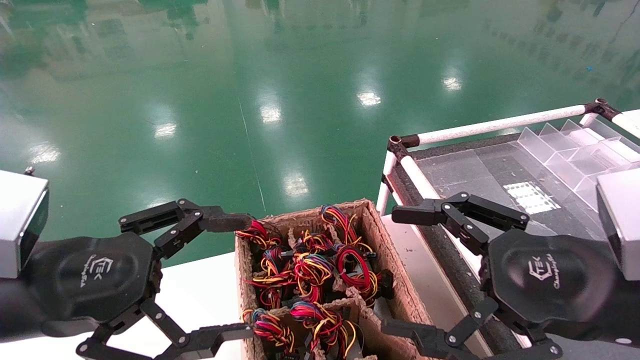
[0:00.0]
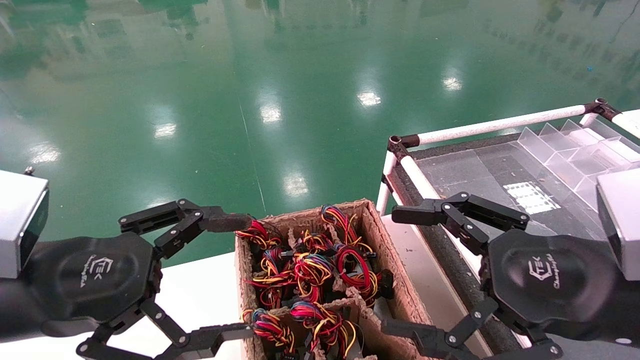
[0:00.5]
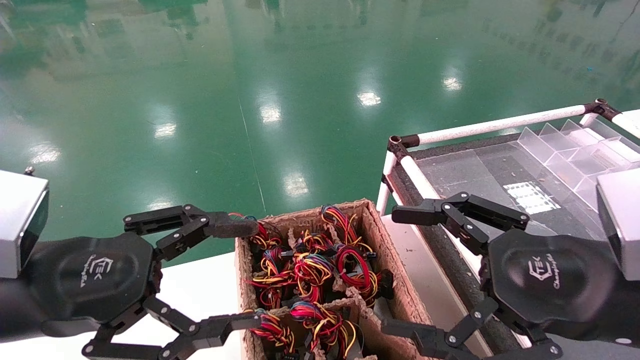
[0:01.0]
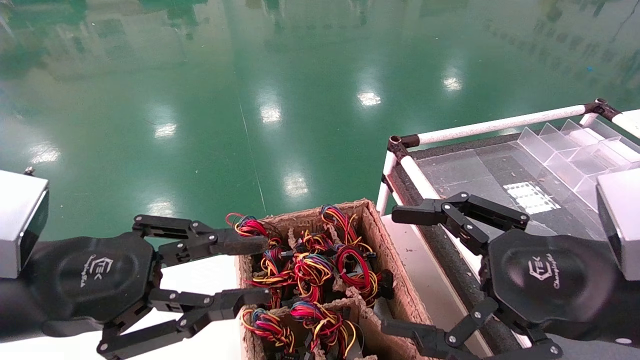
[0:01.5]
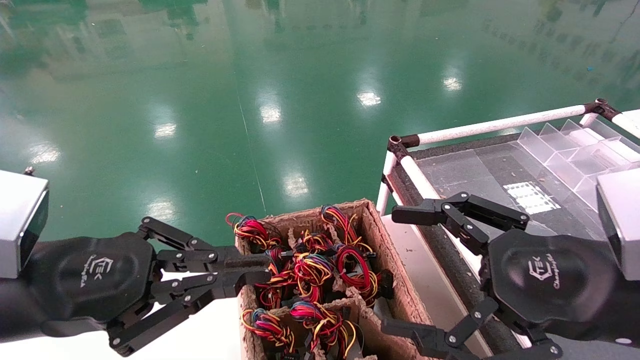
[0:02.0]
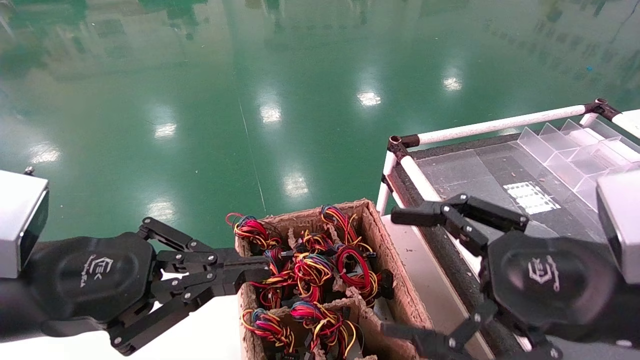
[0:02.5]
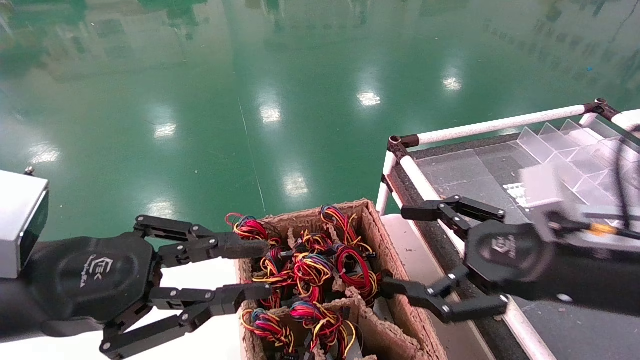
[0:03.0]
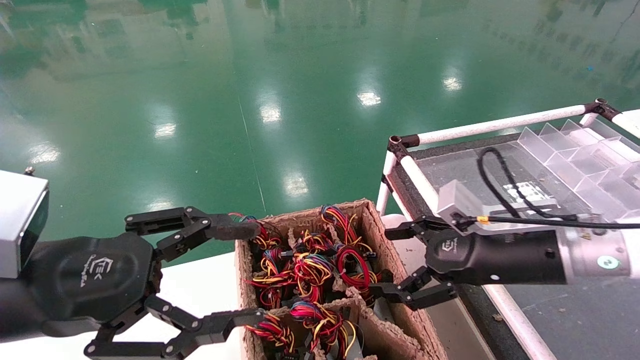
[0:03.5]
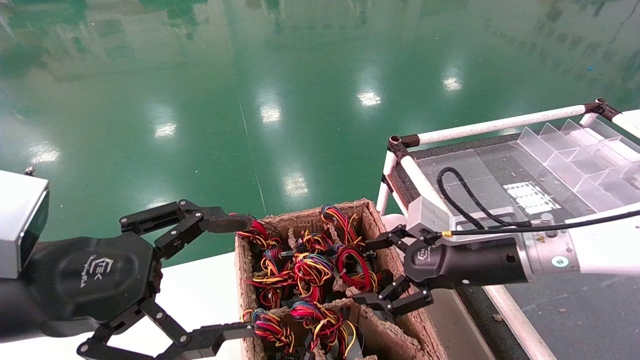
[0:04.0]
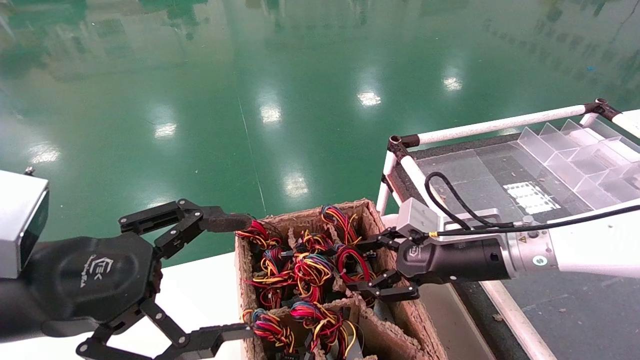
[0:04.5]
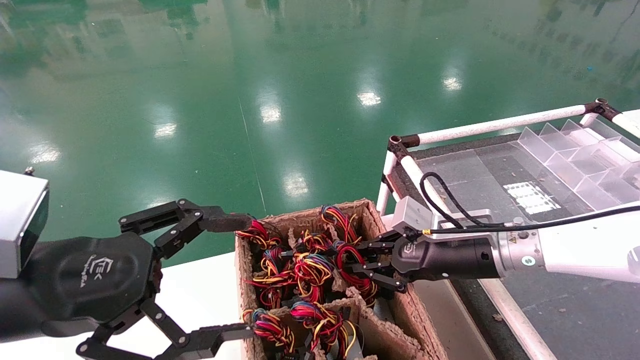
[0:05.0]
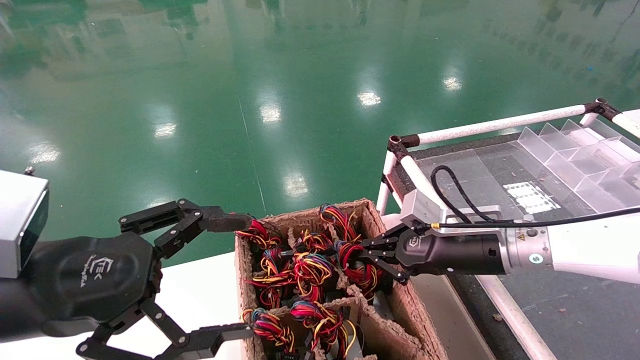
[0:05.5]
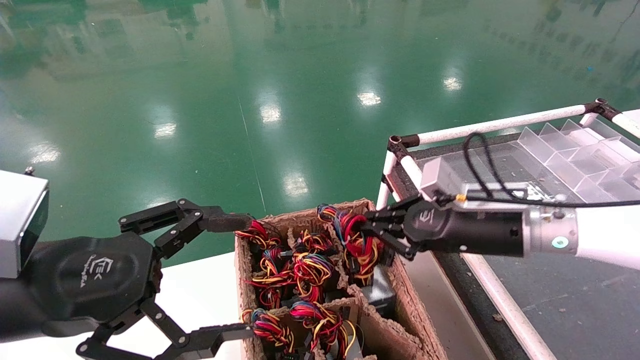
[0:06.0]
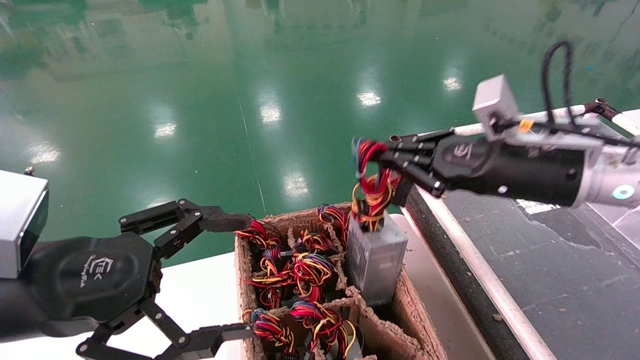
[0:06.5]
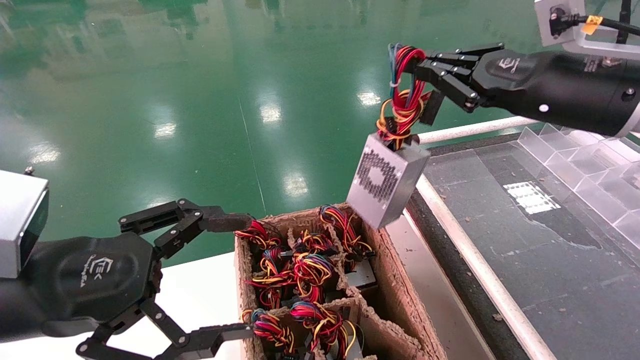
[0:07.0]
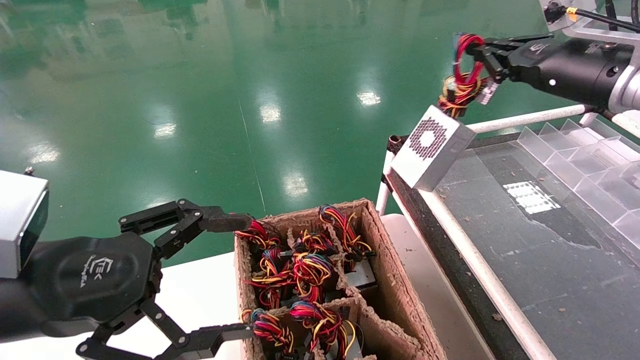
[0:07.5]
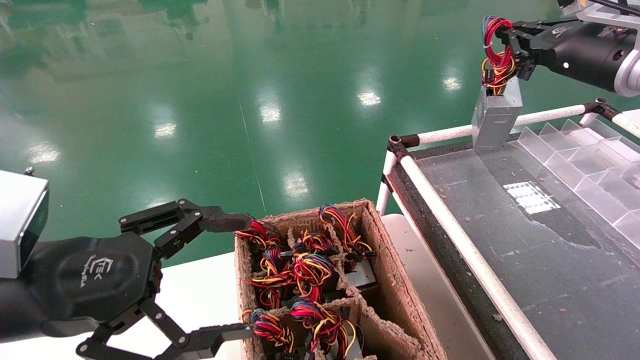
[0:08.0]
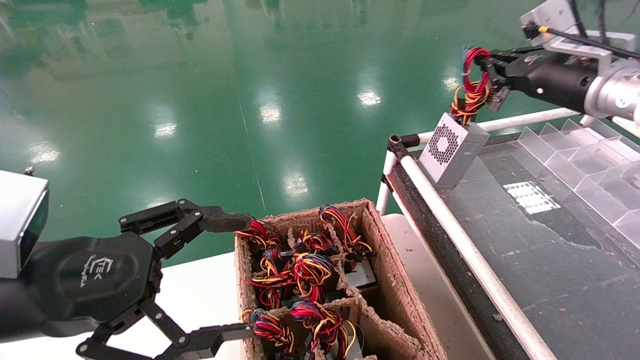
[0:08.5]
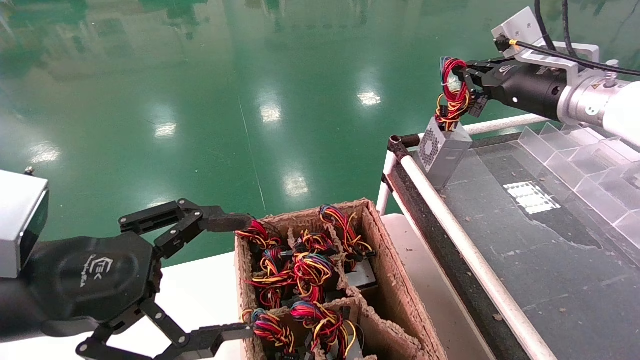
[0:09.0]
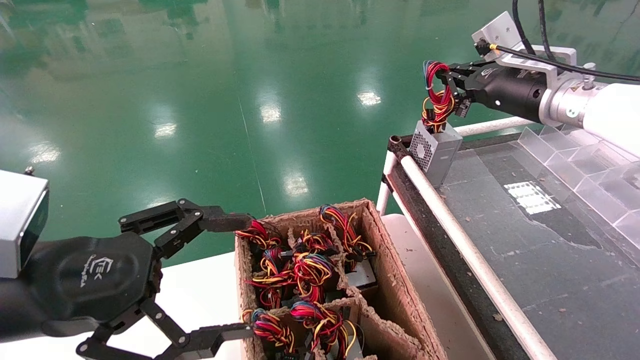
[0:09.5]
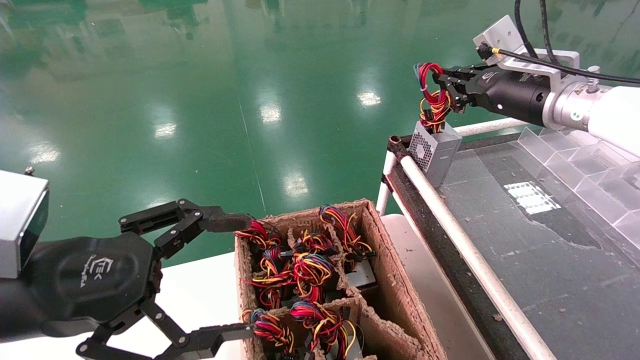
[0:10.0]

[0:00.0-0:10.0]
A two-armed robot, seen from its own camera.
Step, 0:02.5 to 0:05.5: Grab and lift the power supply from the large box.
Step, 0:06.0 to 0:09.5: Place the power supply on the operating table.
0:00.0 to 0:02.0: The left gripper closes its fingers.
0:02.0 to 0:04.0: The left gripper opens. The right gripper heads forward, covering some 15 cm.
0:04.0 to 0:06.0: The right gripper closes its fingers.
0:06.0 to 0:08.0: The right gripper heads upward and to the right, covering about 20 cm.
0:08.0 to 0:10.0: The right gripper goes roughly 5 cm to the left.

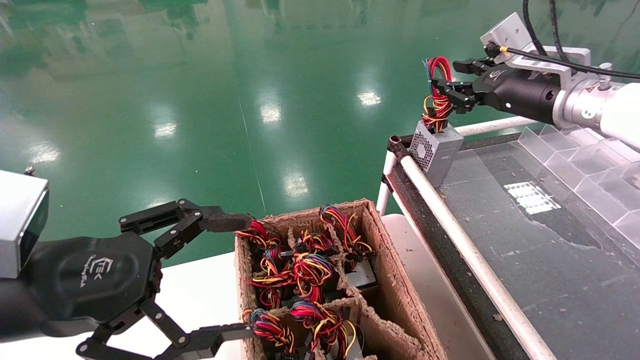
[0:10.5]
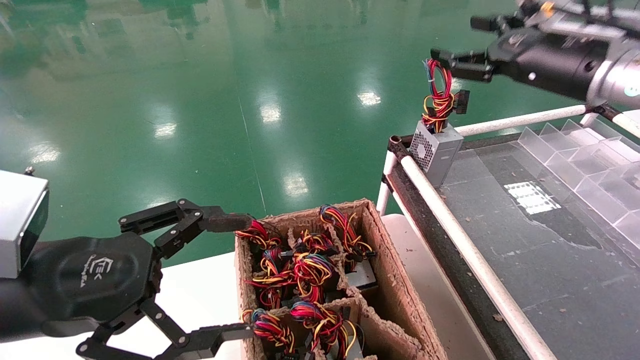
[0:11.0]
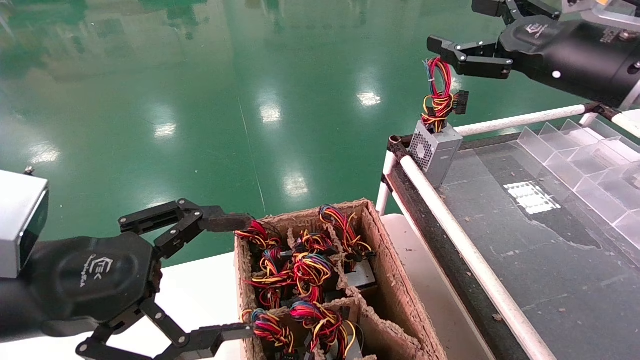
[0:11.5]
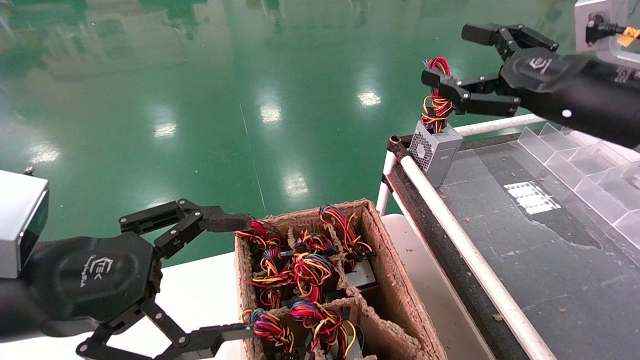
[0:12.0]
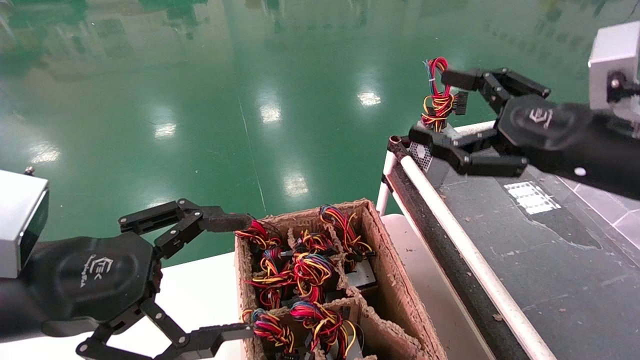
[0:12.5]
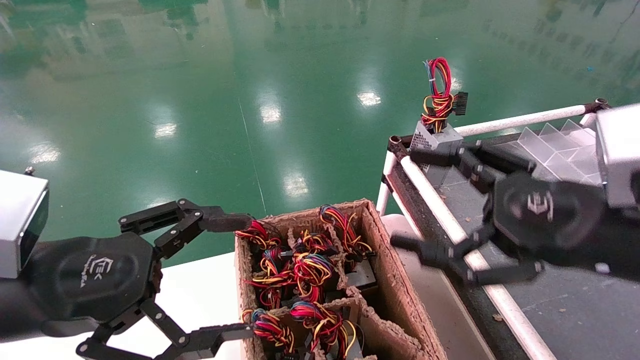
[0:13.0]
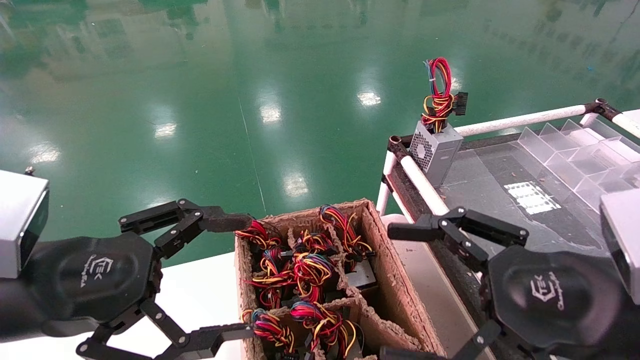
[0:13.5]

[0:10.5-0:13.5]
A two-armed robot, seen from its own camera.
0:10.5 to 0:12.0: The right gripper moves backward, about 10 cm, and opens its fingers.
0:12.0 to 0:13.5: The right gripper moves backward and downward, approximately 20 cm.

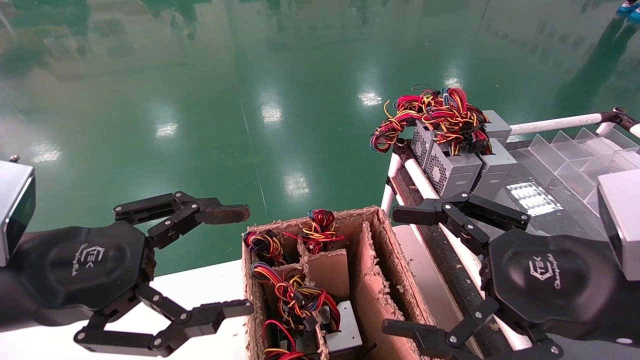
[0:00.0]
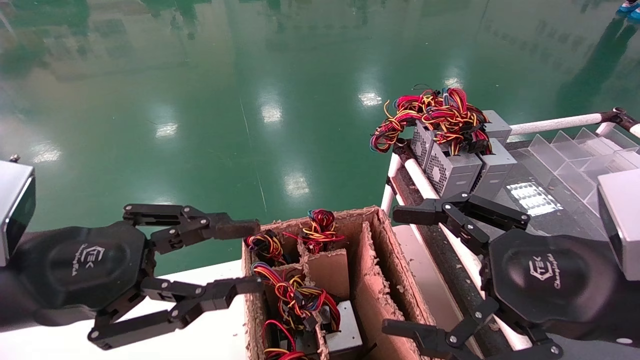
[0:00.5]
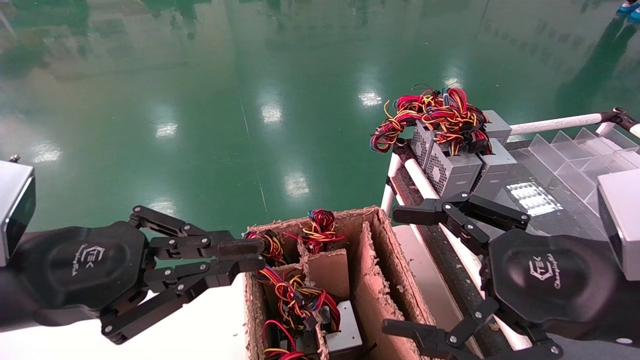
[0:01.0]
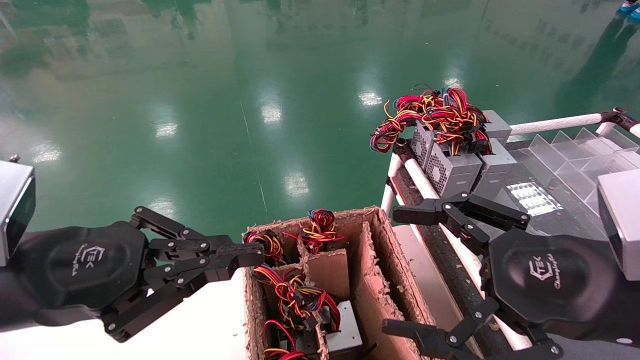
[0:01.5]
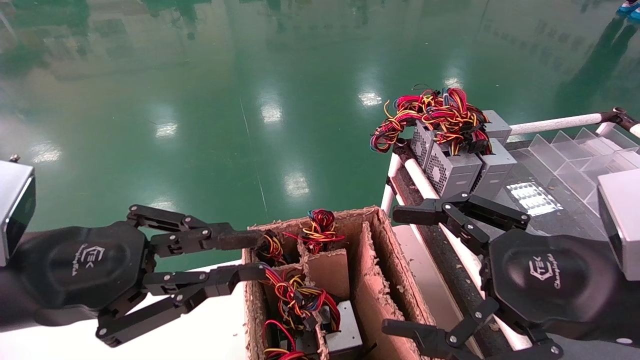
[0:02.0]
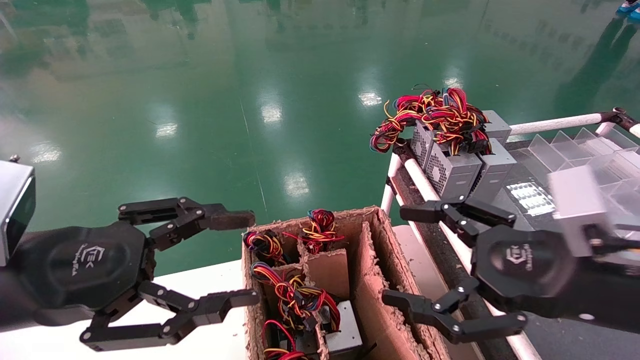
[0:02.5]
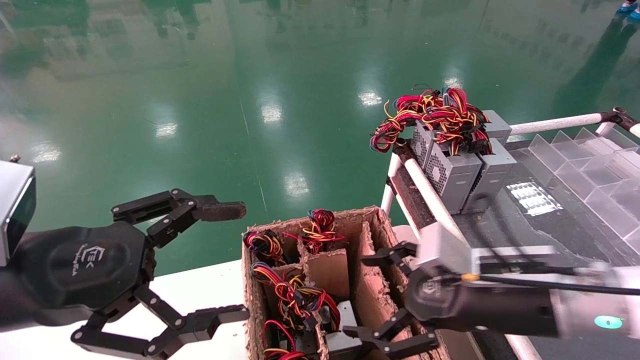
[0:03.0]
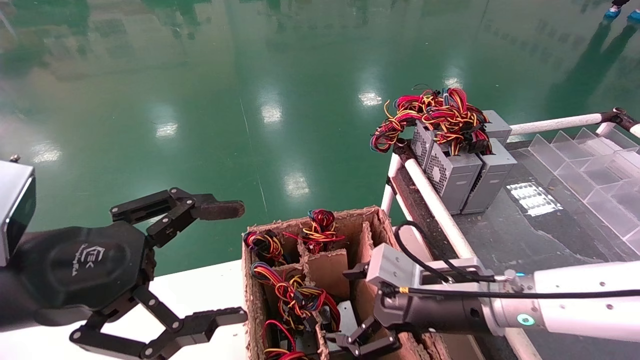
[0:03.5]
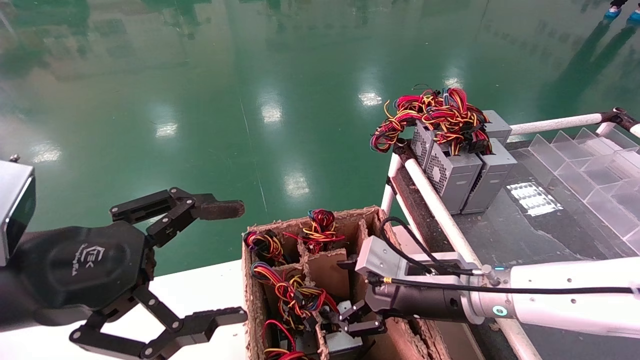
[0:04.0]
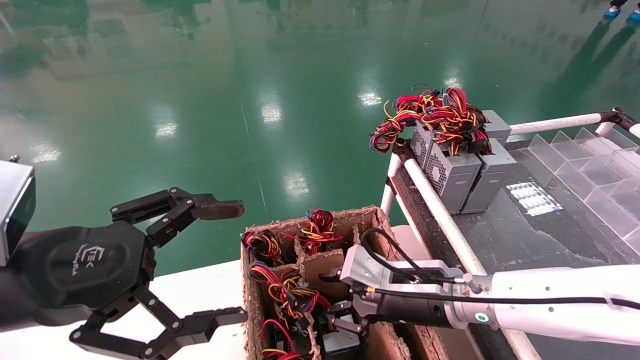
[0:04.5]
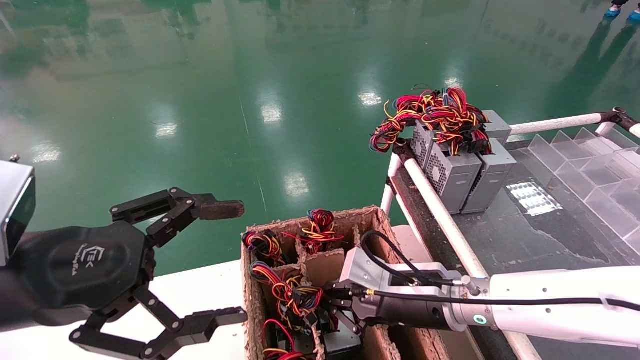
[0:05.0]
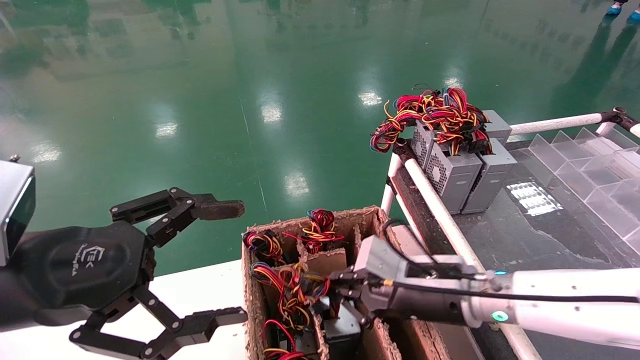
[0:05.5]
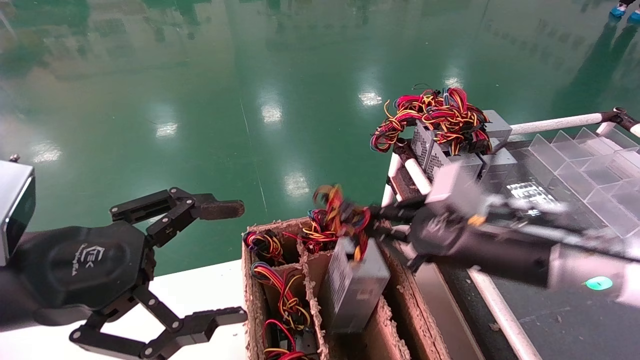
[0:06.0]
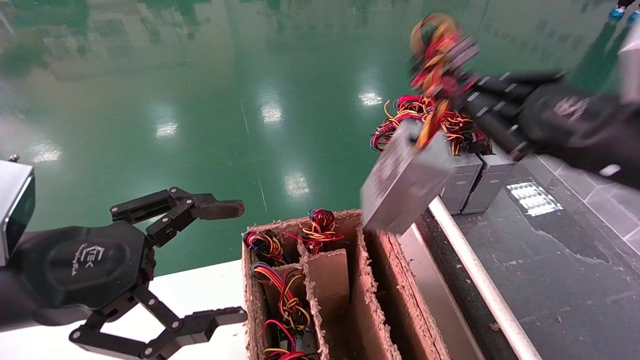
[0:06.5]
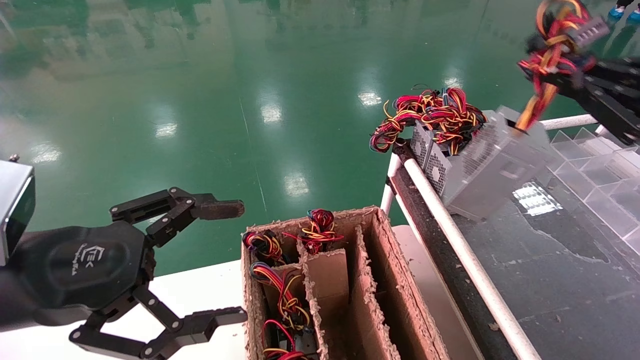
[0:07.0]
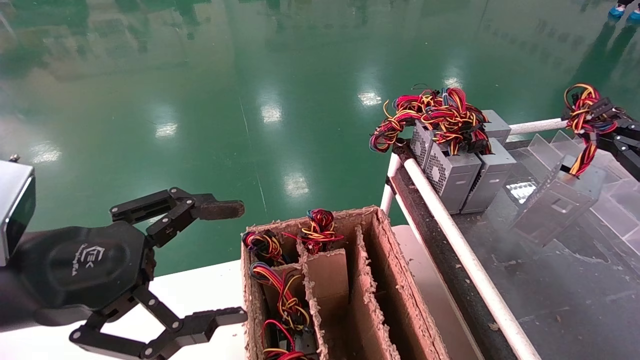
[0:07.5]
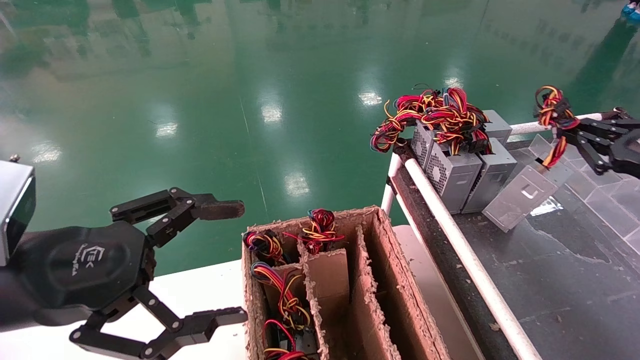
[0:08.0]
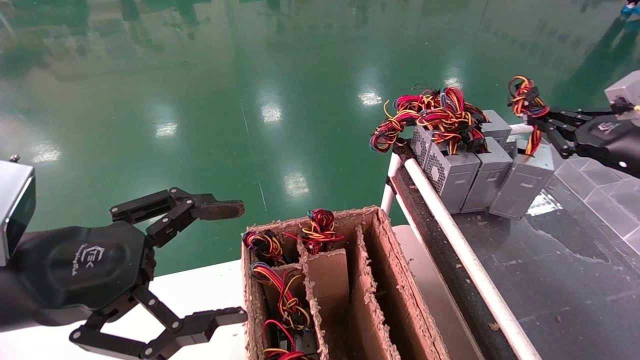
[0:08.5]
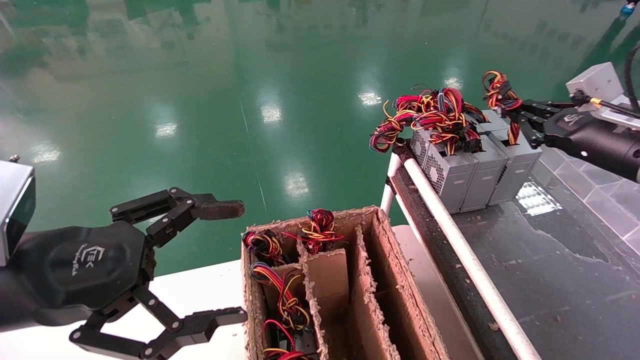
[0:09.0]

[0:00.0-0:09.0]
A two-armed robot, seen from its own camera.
Step, 0:01.5 to 0:05.0: Grab and lift the power supply from the large box.
0:00.0 to 0:02.0: The left gripper closes.
0:02.0 to 0:04.5: The right gripper heads forward, downward and to the left, covering roughly 20 cm, and closes up. The left gripper opens up.
0:04.5 to 0:07.0: The right gripper goes roughly 30 cm to the right and upward, and closes.
0:07.0 to 0:09.0: The right gripper goes about 15 cm forward.
